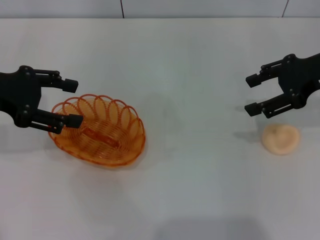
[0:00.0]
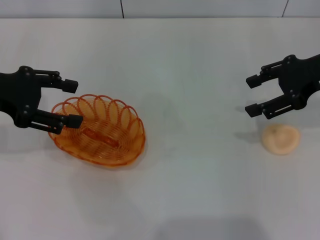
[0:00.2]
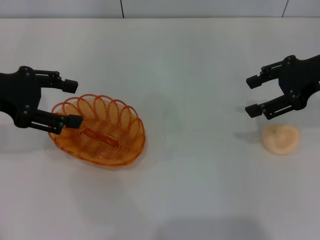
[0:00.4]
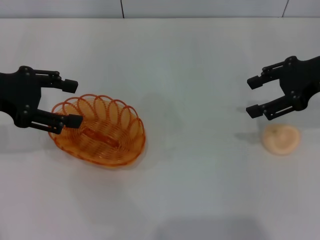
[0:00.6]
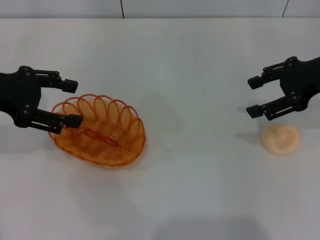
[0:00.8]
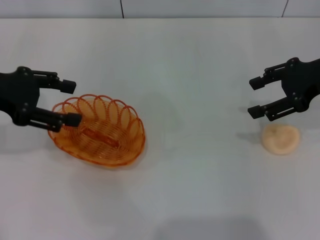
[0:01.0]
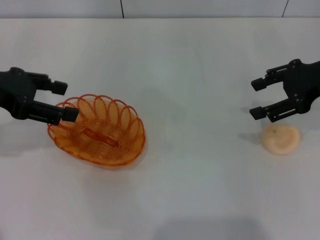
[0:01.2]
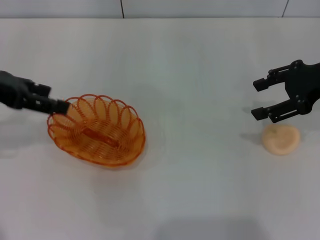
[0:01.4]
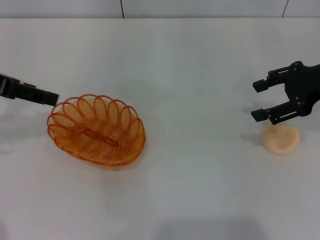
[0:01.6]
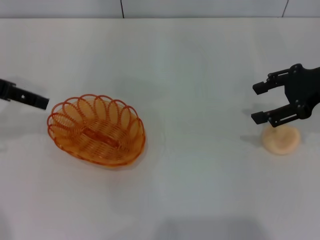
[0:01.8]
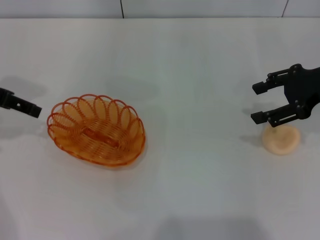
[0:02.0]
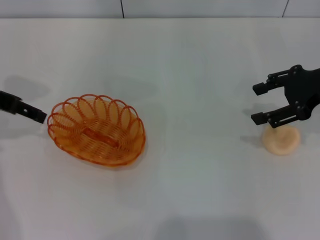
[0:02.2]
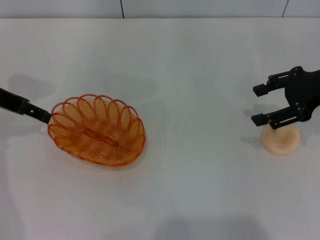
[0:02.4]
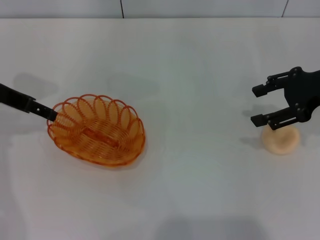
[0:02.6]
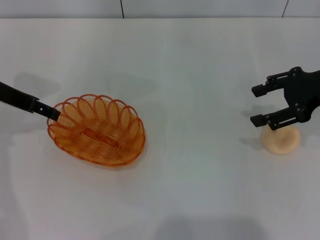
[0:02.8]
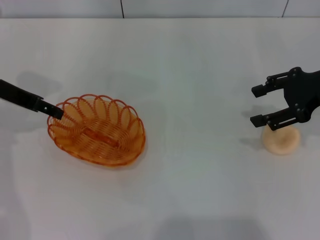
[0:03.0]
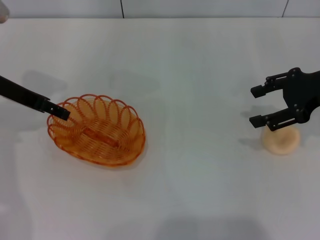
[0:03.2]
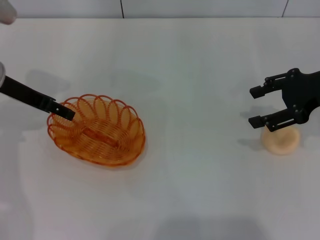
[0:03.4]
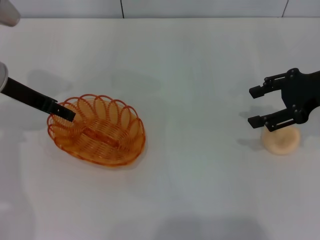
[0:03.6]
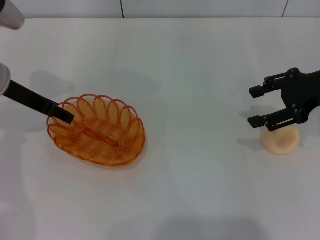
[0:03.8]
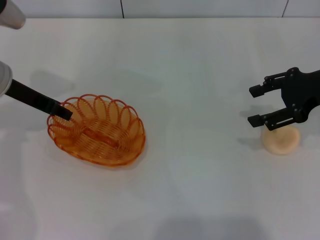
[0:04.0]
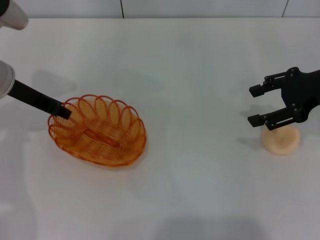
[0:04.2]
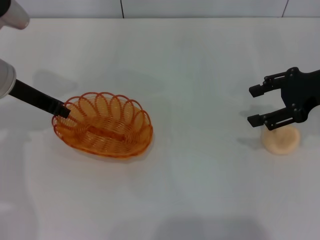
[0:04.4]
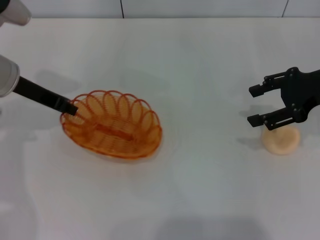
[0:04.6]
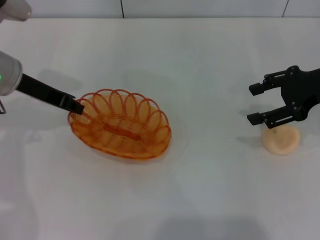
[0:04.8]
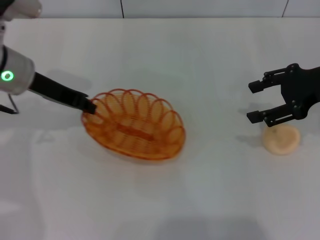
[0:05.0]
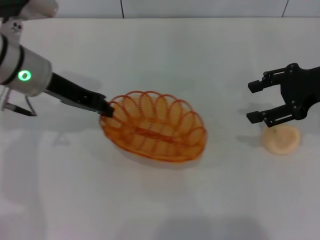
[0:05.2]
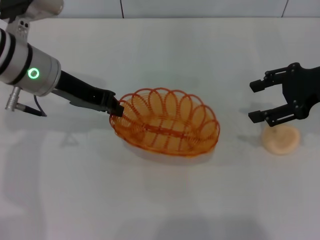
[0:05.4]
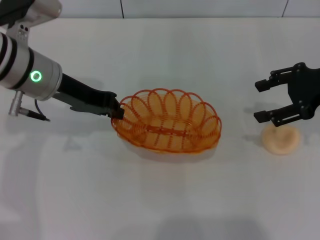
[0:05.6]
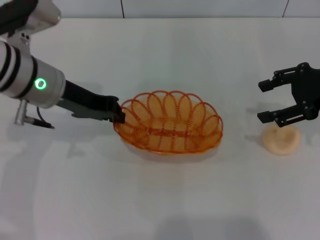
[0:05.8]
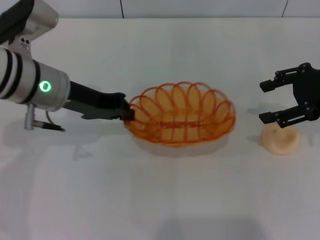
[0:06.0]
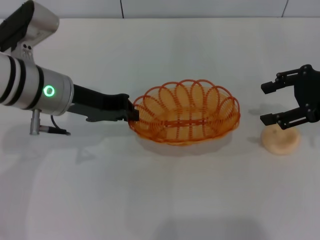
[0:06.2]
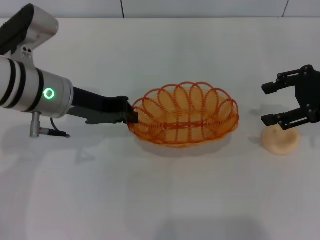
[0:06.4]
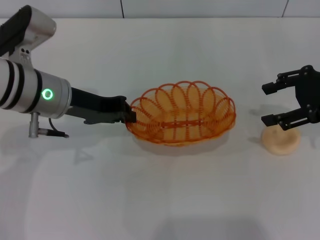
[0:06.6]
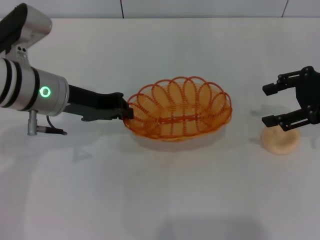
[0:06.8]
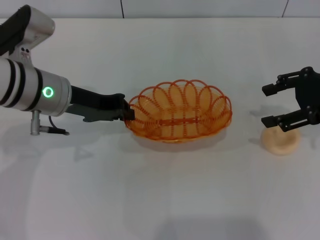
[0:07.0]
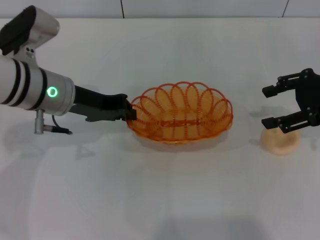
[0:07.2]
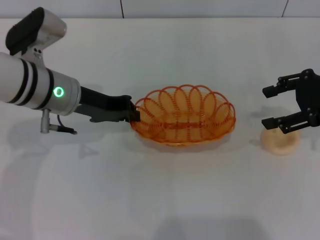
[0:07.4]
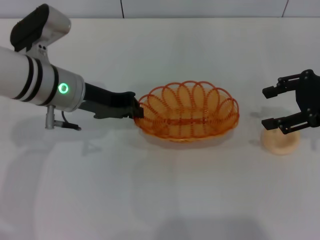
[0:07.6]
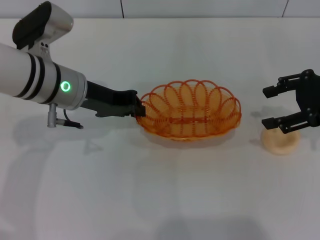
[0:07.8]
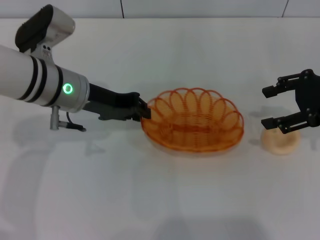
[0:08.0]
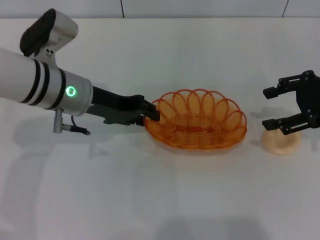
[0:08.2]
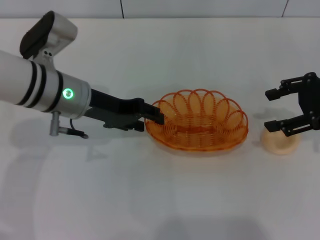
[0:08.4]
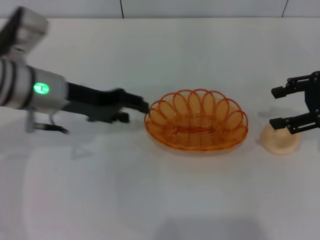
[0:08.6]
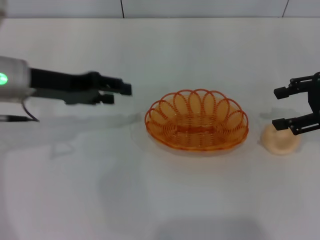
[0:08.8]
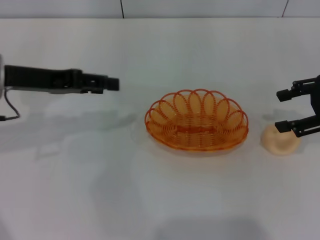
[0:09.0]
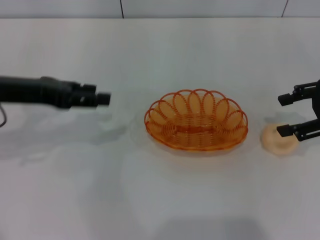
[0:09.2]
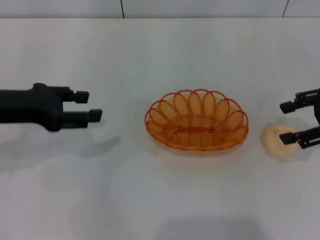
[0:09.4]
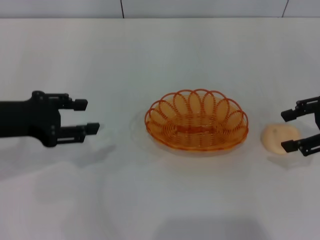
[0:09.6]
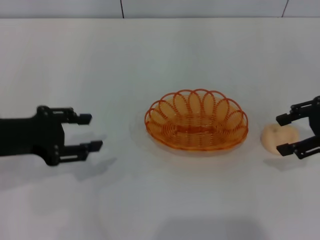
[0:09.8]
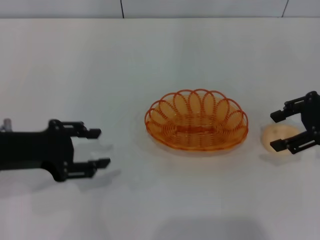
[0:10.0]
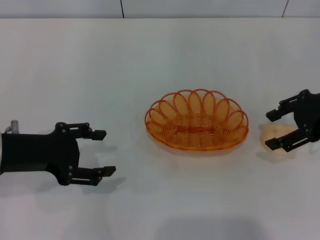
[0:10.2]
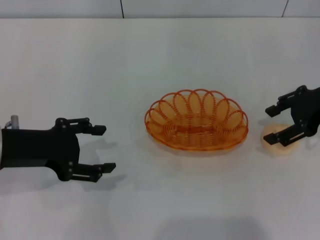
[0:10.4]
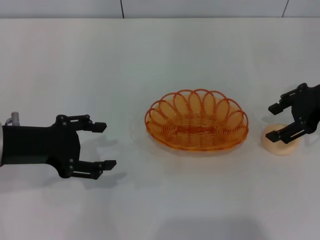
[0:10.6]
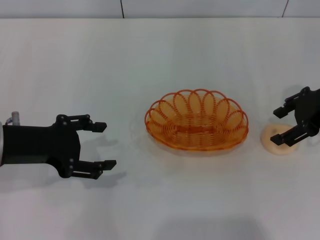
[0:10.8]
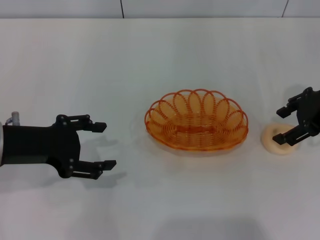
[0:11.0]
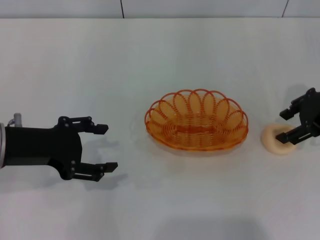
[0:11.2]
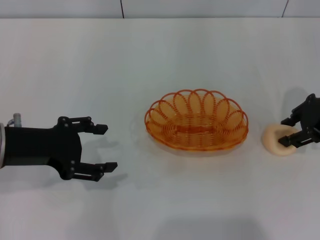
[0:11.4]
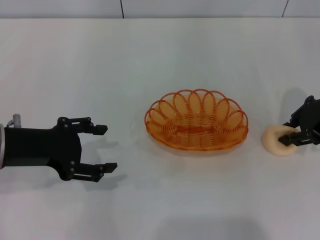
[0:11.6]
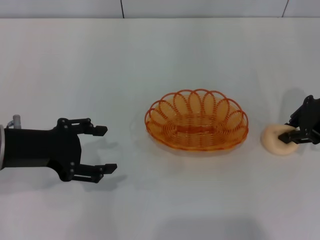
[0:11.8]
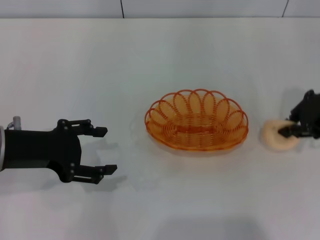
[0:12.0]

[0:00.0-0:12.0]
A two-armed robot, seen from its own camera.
Step, 0:00.0 to 0:07.4: Pick up the basket with the left gripper.
Step, 0:07.6 to 0:08.8: Place the basket in the center of view with the left gripper.
0:01.6 to 0:03.0: The left gripper moves downward, about 5 cm.
0:03.0 to 0:04.4: The left gripper closes.
0:04.4 to 0:06.0: The left gripper shifts roughly 5 cm to the right.
0:06.0 to 0:07.6: There are only small adjustments of the grippers.
0:07.6 to 0:09.0: The left gripper travels to the left by roughly 10 cm, and opens its fingers.
0:09.0 to 0:10.4: The left gripper is displaced backward by roughly 5 cm.
0:10.4 to 0:12.0: The right gripper closes.

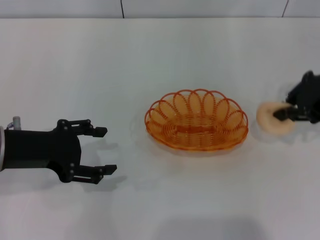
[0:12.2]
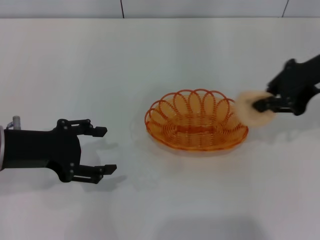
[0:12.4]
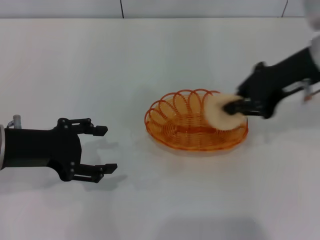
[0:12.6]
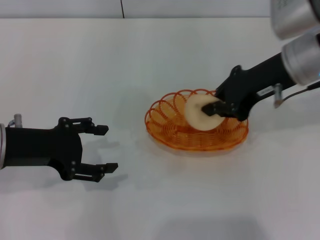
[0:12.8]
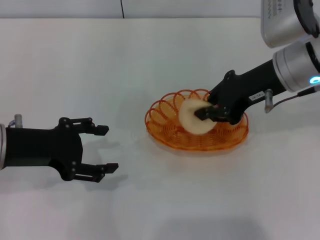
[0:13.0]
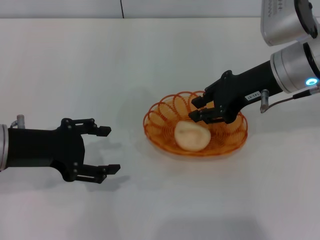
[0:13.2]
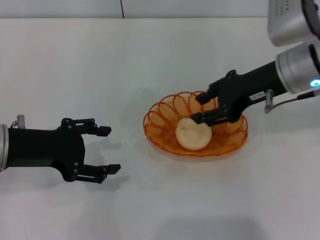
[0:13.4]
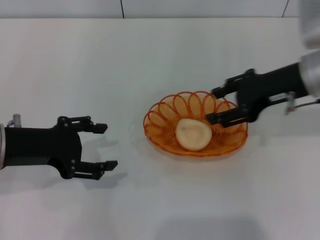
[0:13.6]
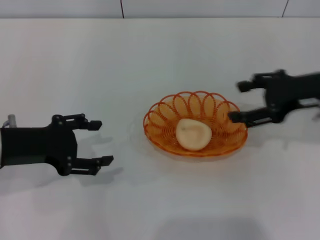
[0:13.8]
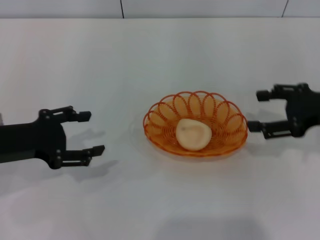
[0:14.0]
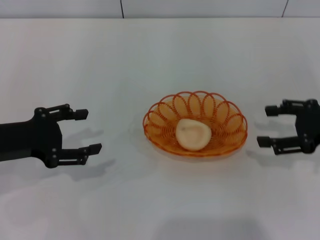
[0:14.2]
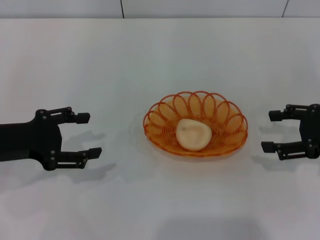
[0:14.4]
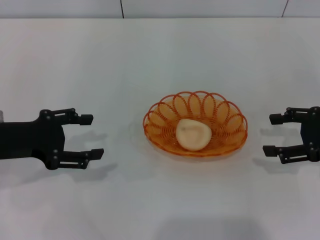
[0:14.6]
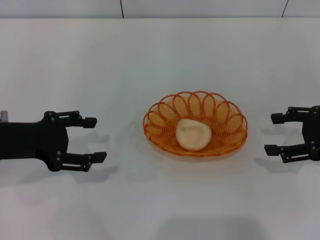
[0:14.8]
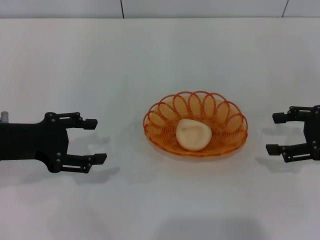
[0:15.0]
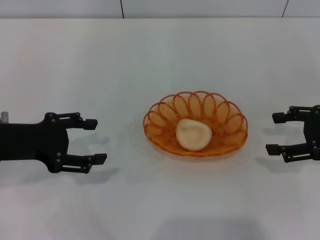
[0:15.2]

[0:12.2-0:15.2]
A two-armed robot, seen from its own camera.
Step, 0:12.4 to 0:14.0: Place the egg yolk pastry into the basket with the right gripper.
0:12.2 to 0:13.8: The right gripper goes to the left and returns, about 10 cm each way, and opens up.
0:13.8 to 0:15.2: The right gripper heads to the right, covering approximately 5 cm.
